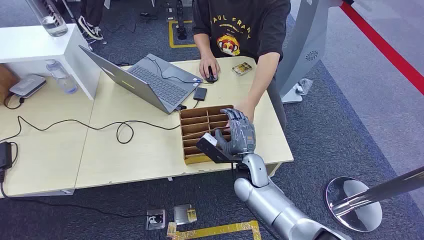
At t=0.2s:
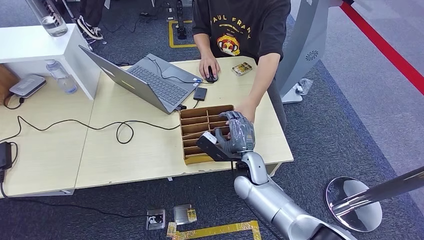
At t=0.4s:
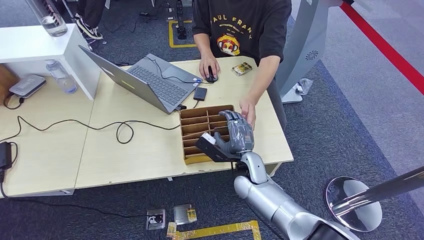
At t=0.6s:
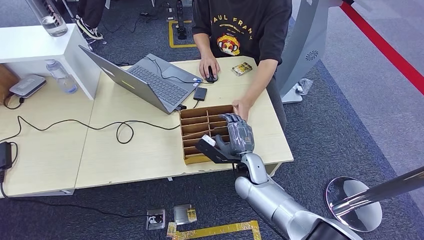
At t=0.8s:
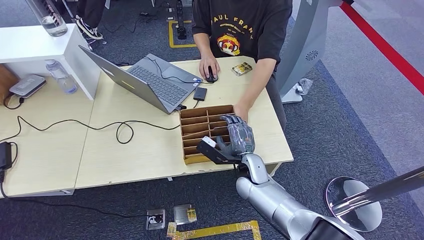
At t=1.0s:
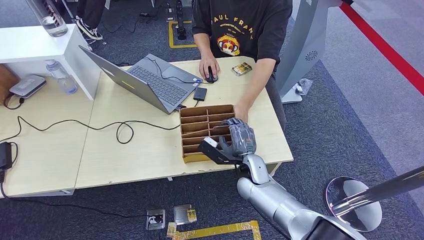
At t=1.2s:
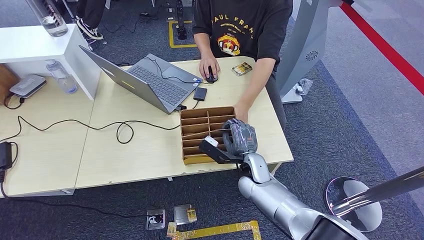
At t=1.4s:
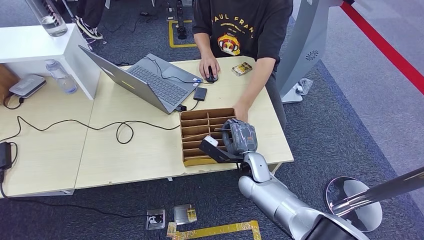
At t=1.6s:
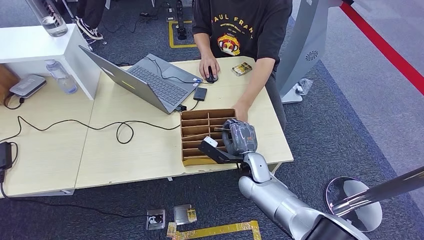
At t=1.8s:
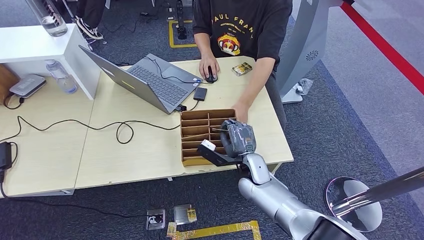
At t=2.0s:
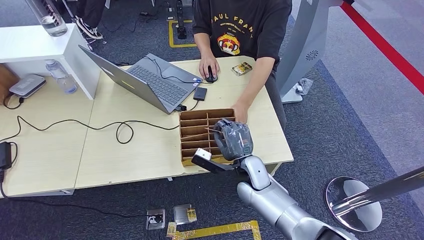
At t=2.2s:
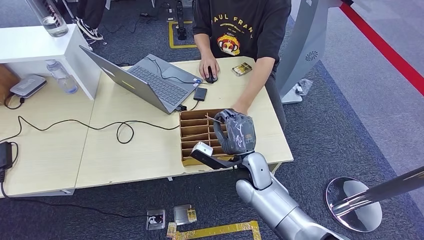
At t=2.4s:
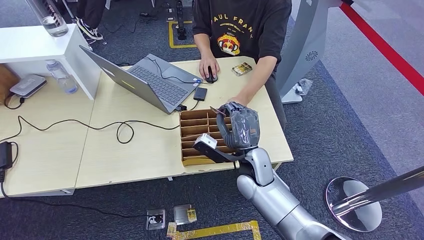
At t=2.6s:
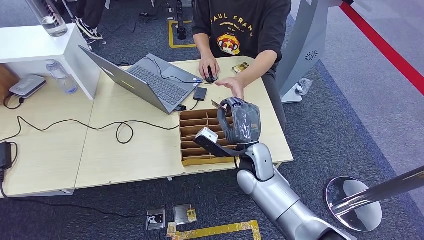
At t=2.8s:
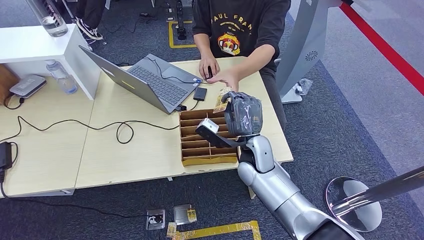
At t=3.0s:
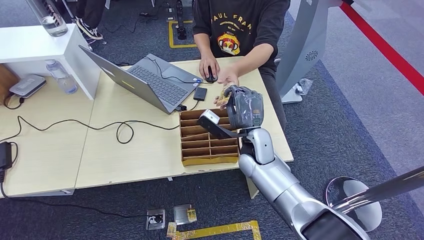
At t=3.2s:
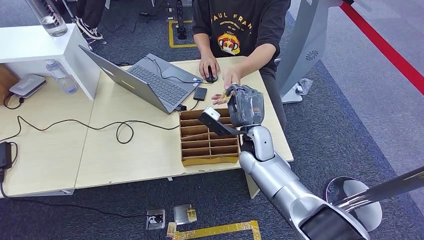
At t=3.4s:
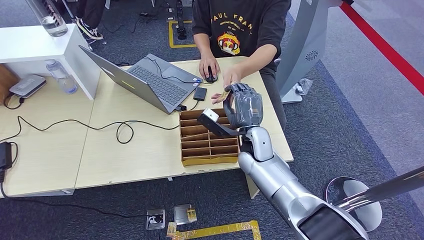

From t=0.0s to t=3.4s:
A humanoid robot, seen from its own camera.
Step, from t=0.0s to t=2.2s: Pick up the key card from the card box.
Step, from t=2.4s to t=3.4s: Hand the key card to the target.
From t=1.6s to t=3.4s: The right hand heads upward, covering about 5 cm.
